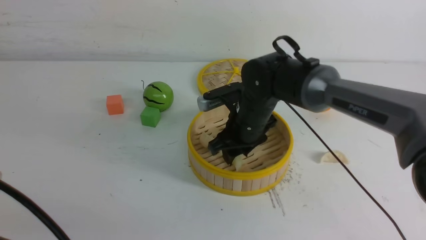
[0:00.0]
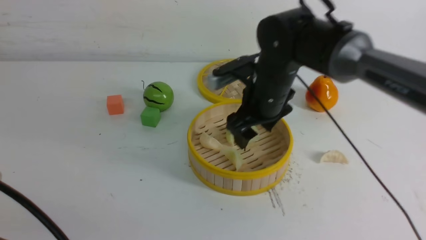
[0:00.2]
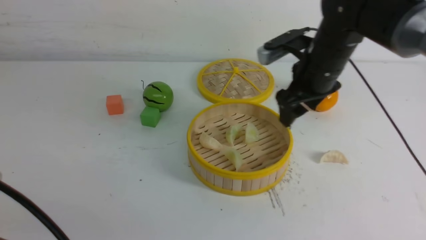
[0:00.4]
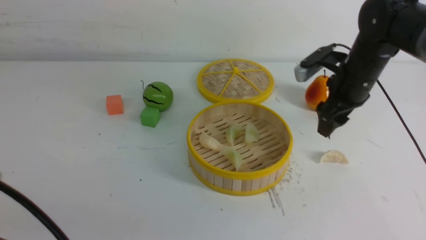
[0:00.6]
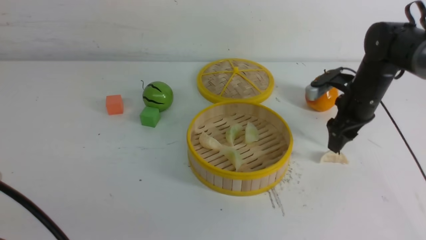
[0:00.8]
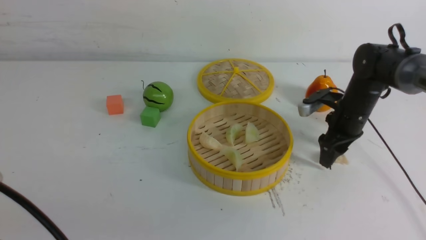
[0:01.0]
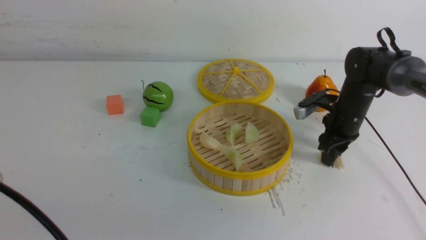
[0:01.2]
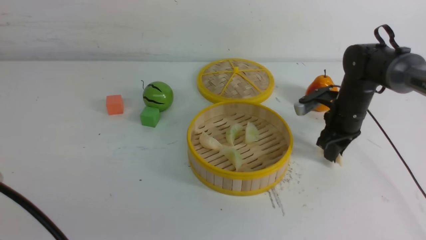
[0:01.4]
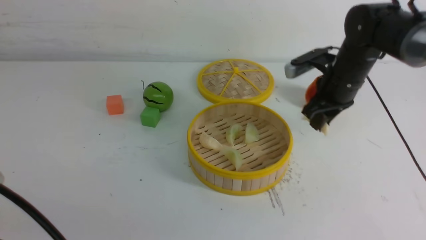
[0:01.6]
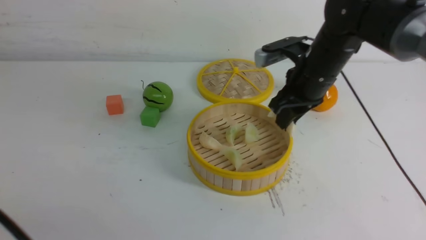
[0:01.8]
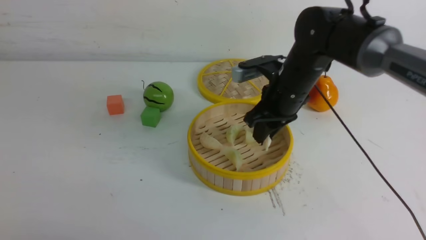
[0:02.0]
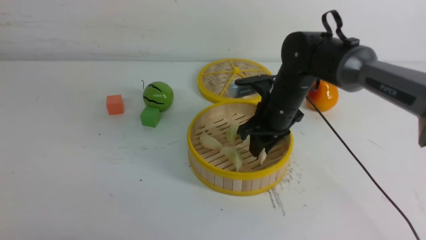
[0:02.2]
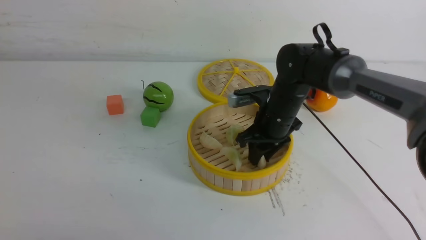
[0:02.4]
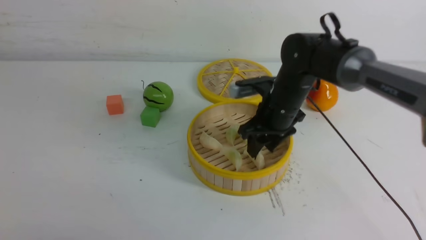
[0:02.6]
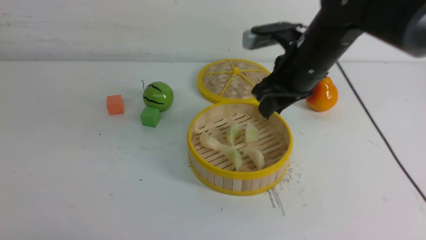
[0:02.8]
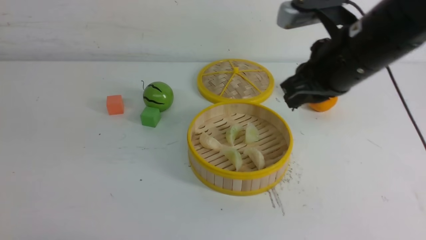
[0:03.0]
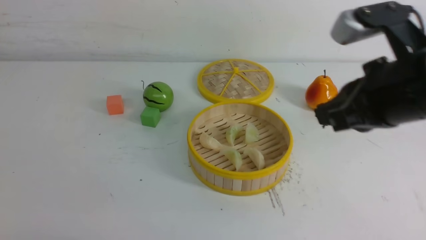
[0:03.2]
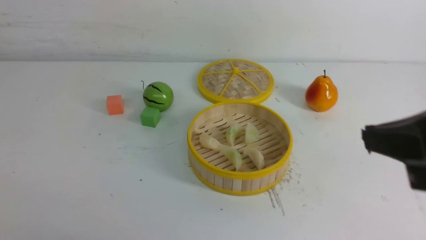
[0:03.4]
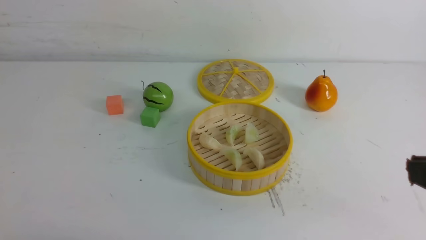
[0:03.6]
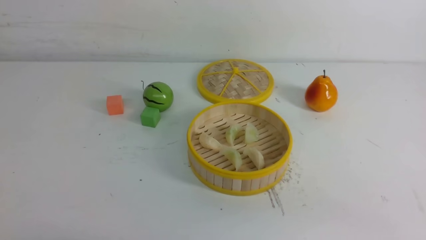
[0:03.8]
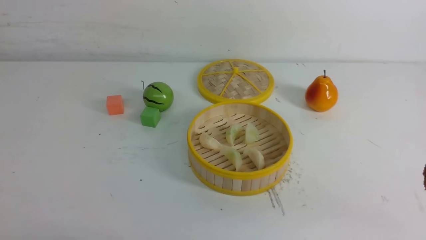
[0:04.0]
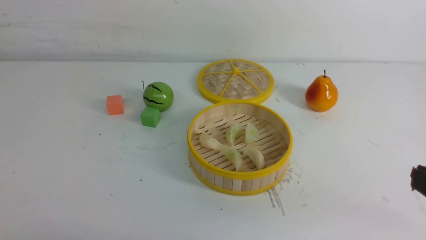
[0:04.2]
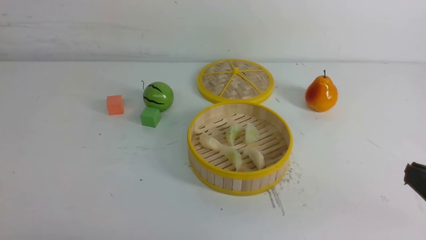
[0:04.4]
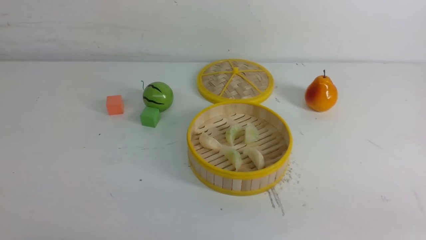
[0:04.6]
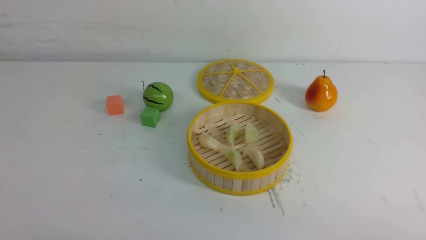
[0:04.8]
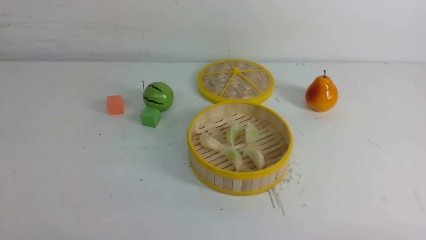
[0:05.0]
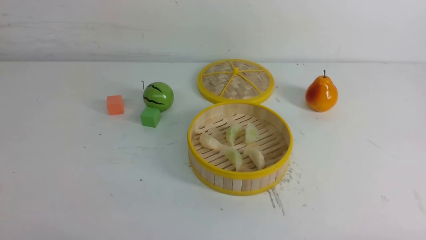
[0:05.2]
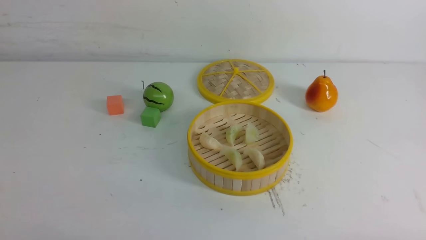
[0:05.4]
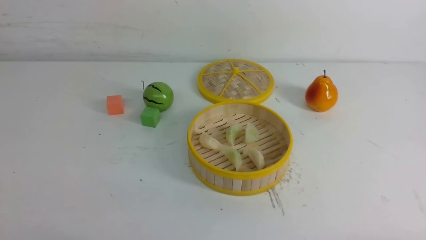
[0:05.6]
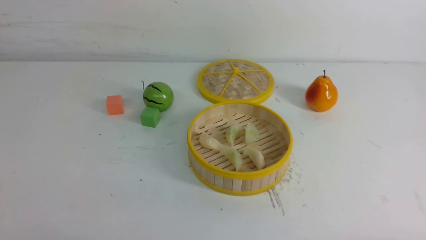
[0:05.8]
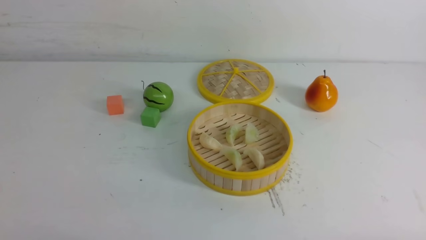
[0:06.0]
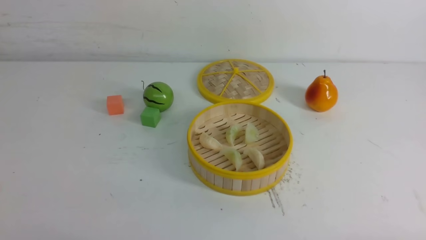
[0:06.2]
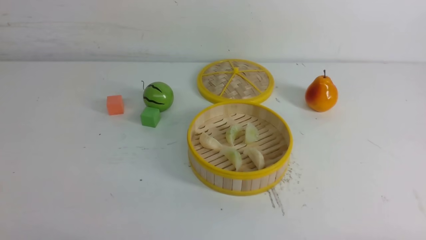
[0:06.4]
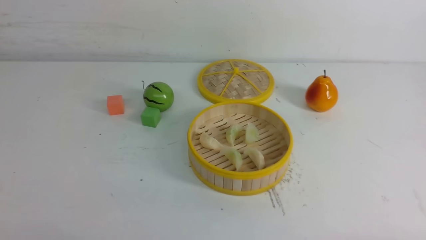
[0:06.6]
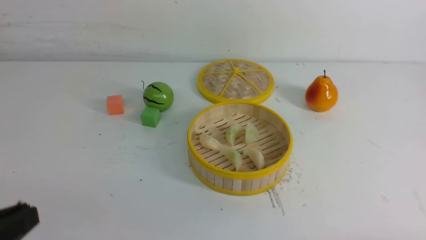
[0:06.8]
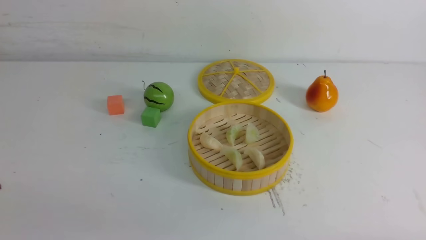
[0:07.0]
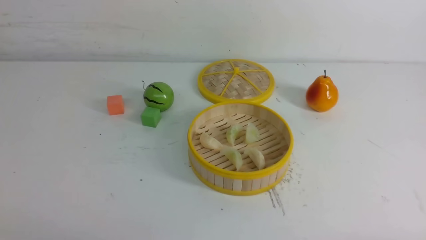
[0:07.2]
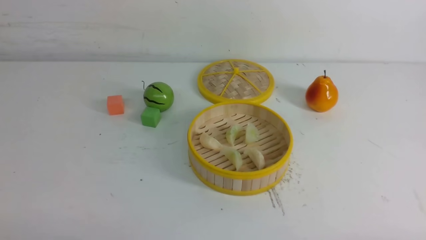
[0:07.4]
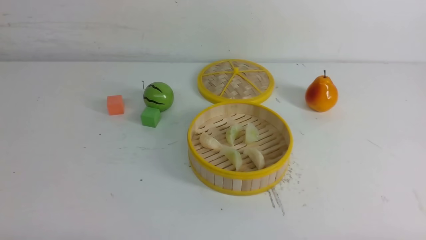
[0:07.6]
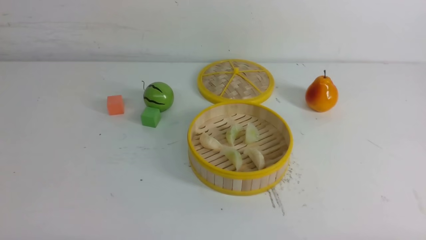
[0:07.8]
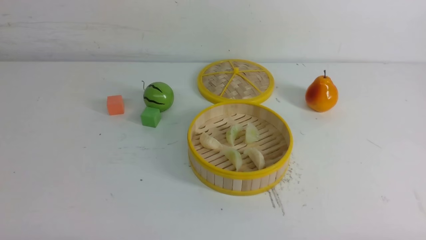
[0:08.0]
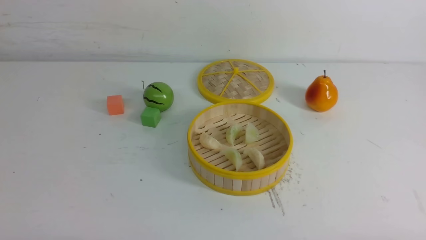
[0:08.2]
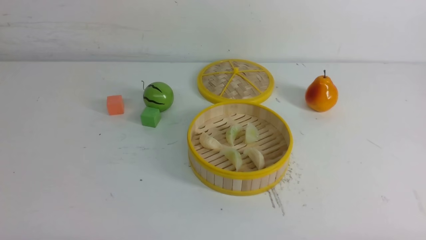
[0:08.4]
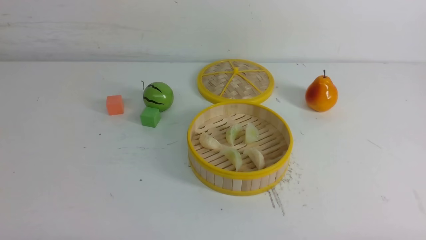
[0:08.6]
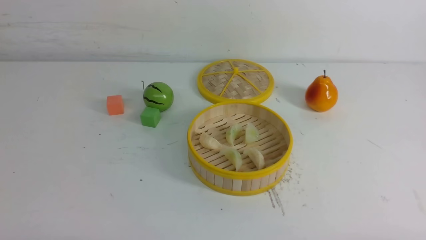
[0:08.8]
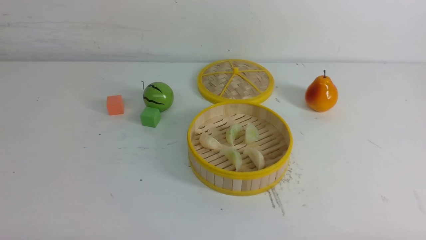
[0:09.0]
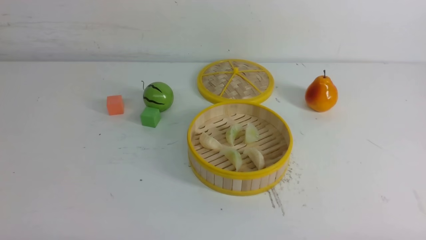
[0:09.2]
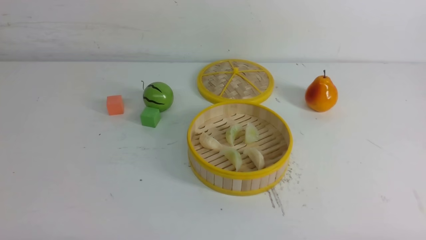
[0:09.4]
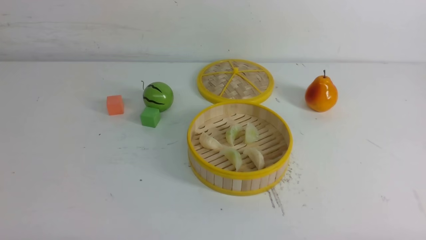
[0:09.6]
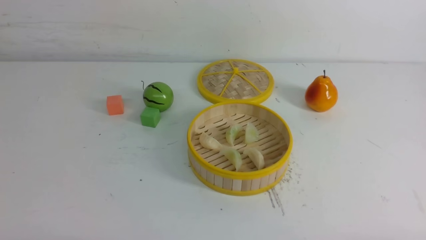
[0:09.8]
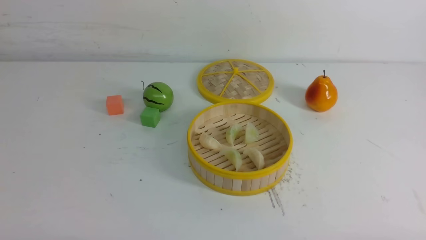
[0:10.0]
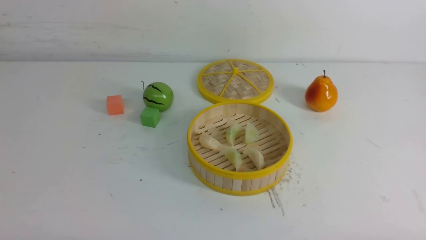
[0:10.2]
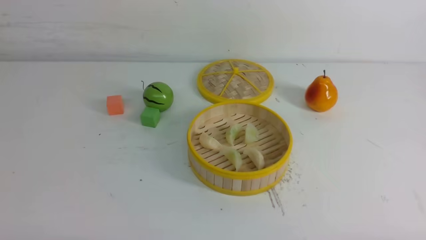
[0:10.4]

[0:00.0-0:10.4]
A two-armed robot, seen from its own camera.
Task of the whole recording: put the dumplings into the steamer on the white table.
Step, 0:00.4 to 0:01.4: use the right arm to grab a dumpling.
Step, 0:01.6 to 0:02.6: use the right arm to put the dumpling into the steamer.
0:00.0 to 0:01.4: The right gripper is displaced to the right by roughly 15 cm, and closes.
0:01.4 to 0:03.0: The left gripper ends up some 5 cm from where it was. Meanwhile the right gripper swings up and down, roughly 15 cm each way, with 2 reversals.
0:03.0 to 0:04.4: The right gripper shifts about 25 cm backward, to the right and downward.
0:09.0 to 0:10.4: Both grippers stay put.
